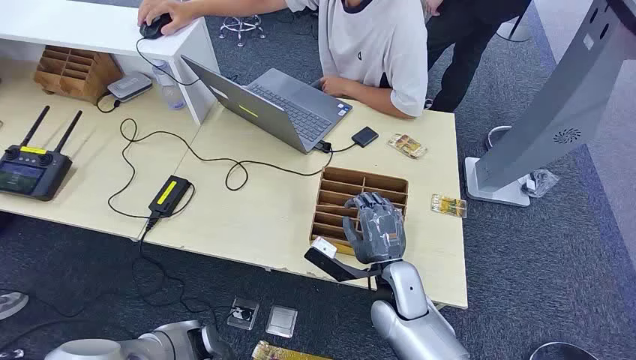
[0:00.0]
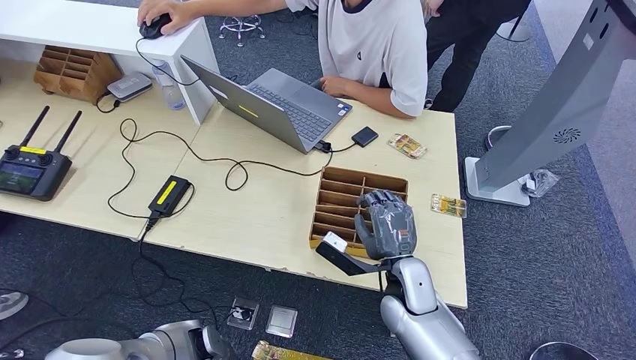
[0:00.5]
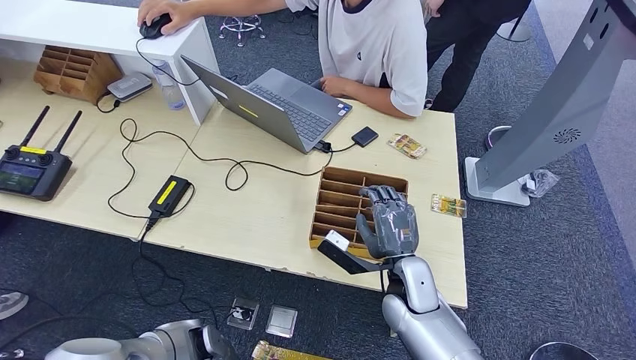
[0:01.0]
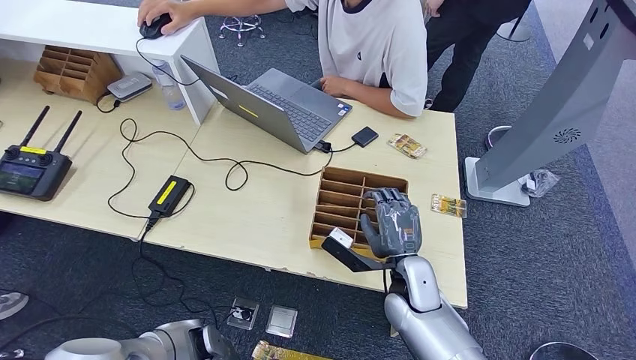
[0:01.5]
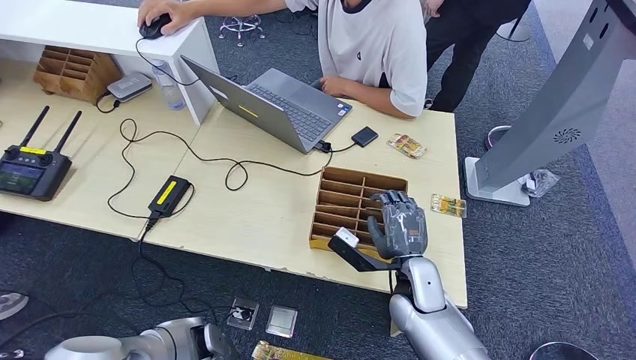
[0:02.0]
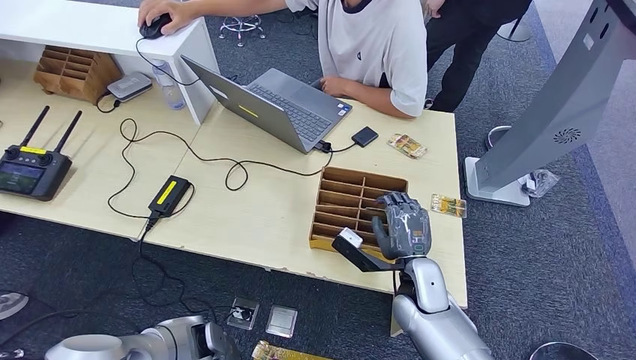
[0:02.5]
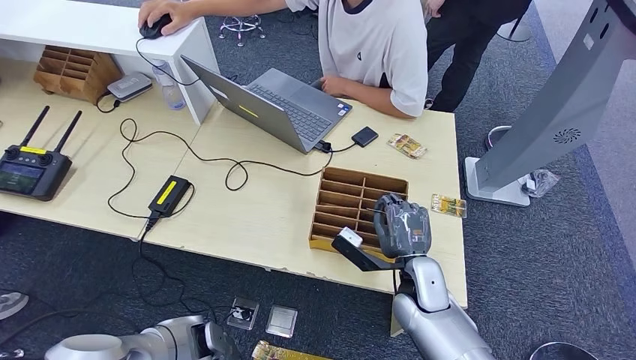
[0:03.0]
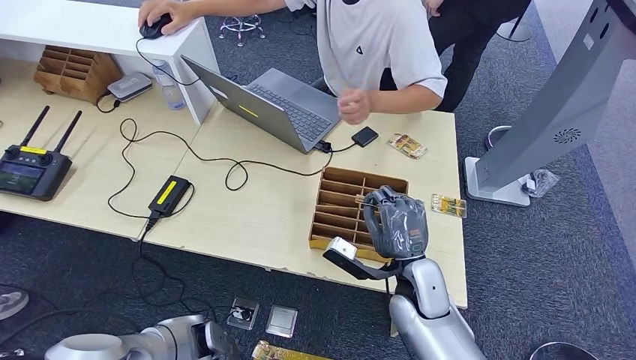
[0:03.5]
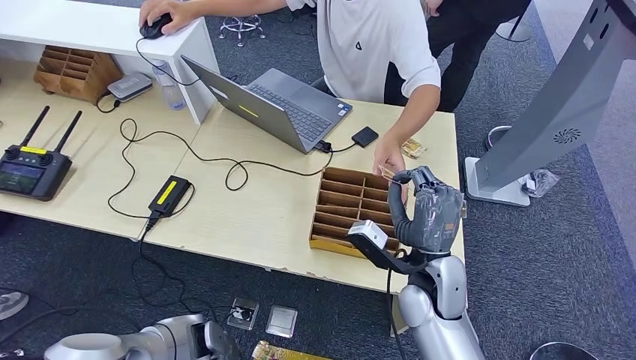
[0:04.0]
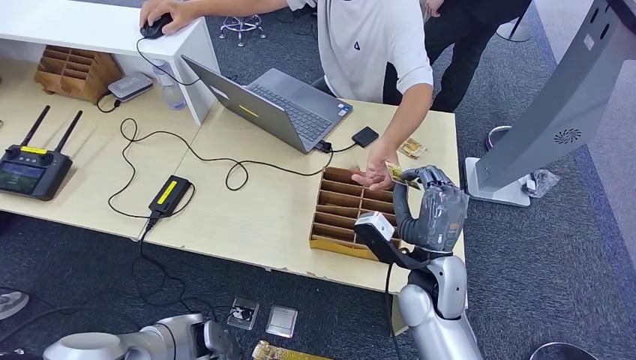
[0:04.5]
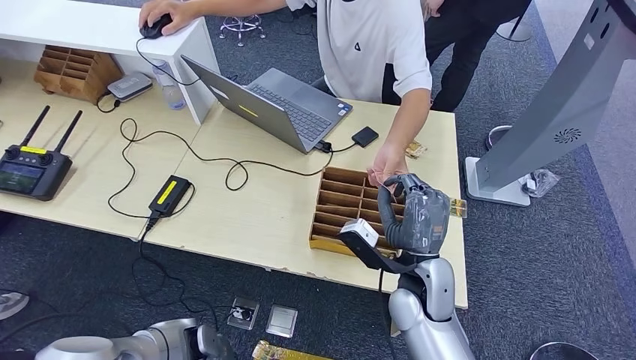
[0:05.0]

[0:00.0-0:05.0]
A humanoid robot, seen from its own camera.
Step, 0:00.0 to 0:04.0: Pick up the room card from the card holder.
Step, 0:04.5 to 0:05.0: Hand the room card to the target.
0:02.5 to 0:05.0: The right hand goes approximately 5 cm upward.
